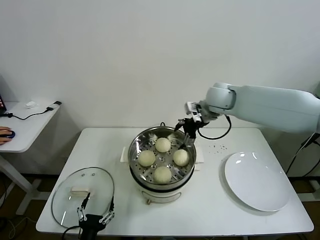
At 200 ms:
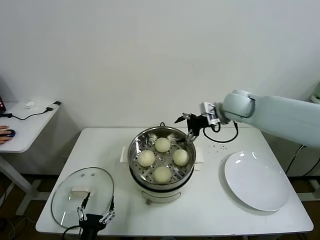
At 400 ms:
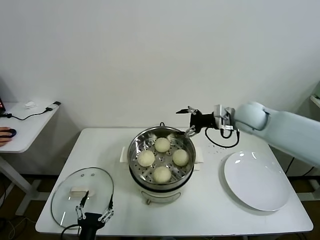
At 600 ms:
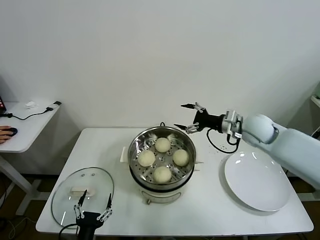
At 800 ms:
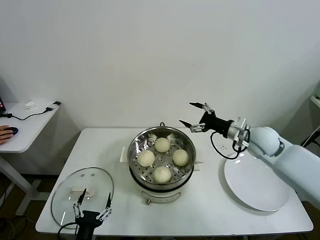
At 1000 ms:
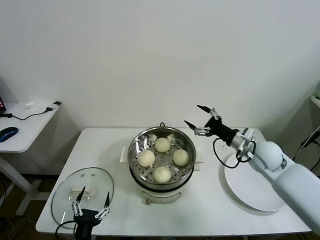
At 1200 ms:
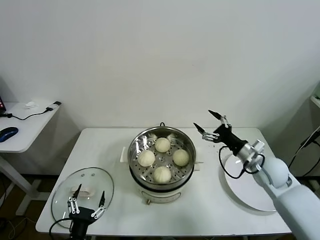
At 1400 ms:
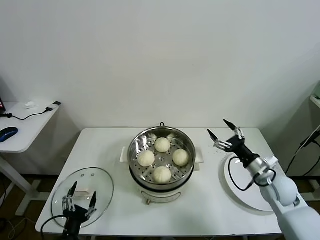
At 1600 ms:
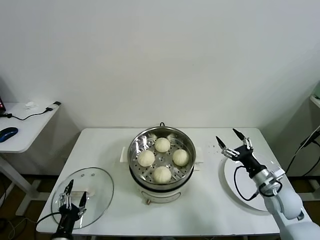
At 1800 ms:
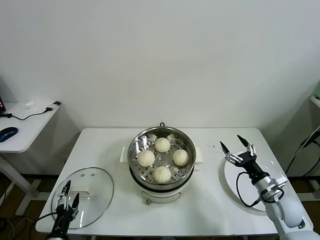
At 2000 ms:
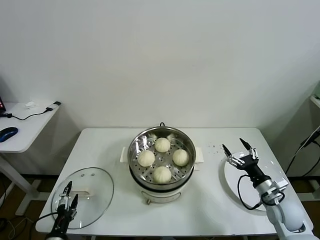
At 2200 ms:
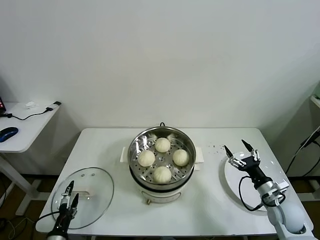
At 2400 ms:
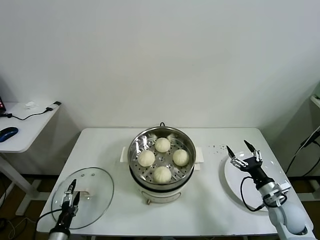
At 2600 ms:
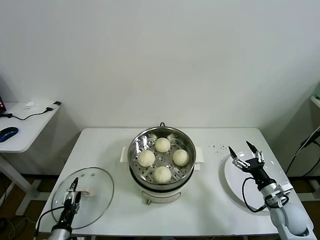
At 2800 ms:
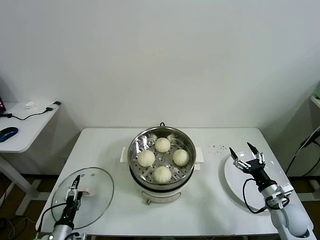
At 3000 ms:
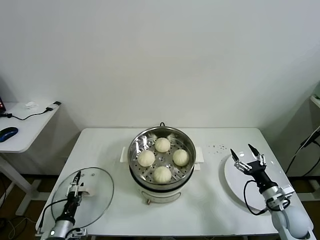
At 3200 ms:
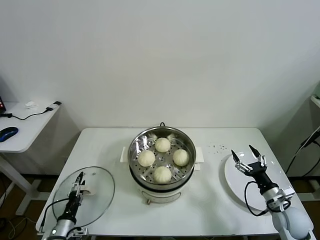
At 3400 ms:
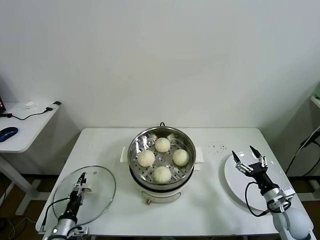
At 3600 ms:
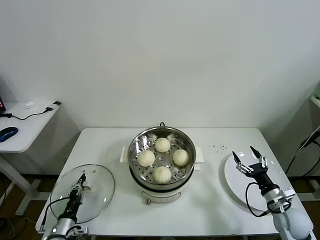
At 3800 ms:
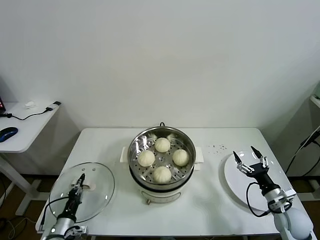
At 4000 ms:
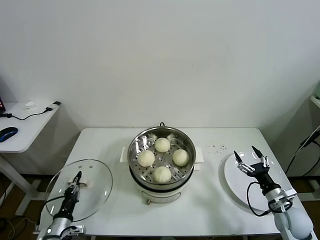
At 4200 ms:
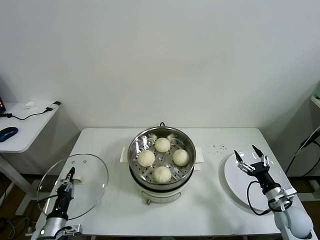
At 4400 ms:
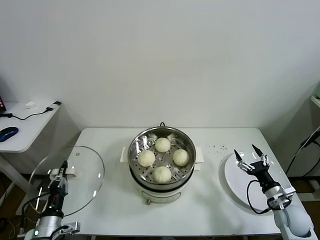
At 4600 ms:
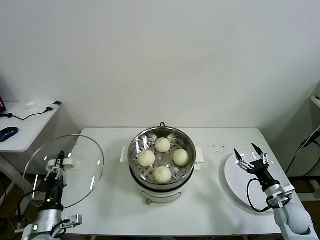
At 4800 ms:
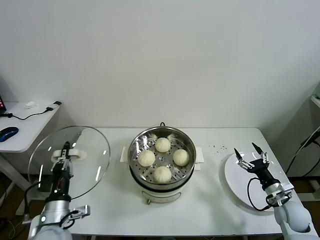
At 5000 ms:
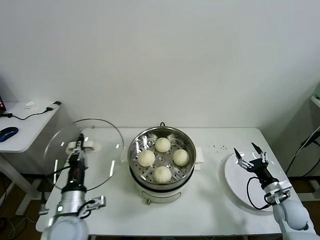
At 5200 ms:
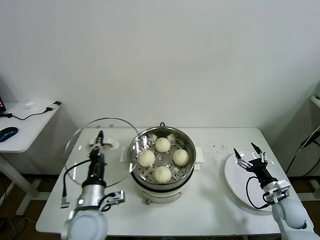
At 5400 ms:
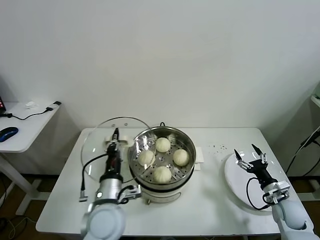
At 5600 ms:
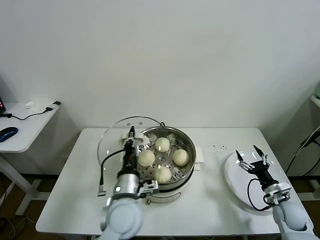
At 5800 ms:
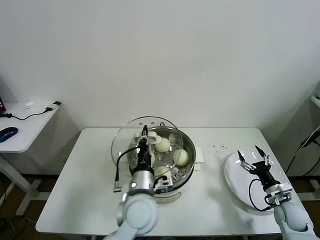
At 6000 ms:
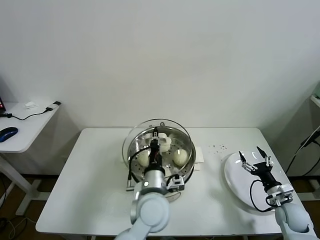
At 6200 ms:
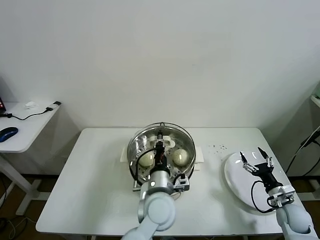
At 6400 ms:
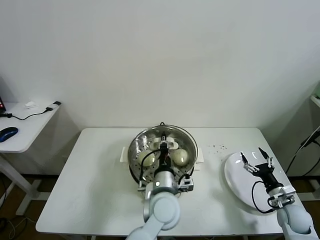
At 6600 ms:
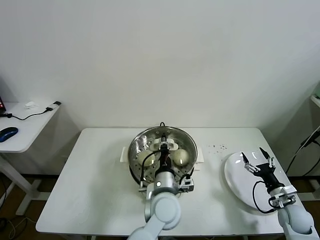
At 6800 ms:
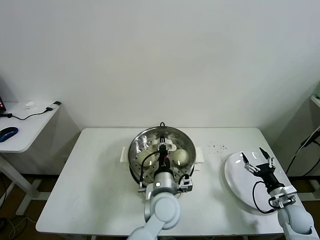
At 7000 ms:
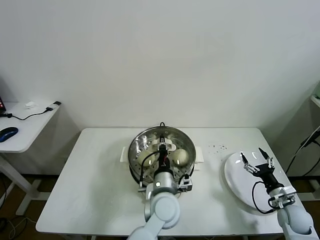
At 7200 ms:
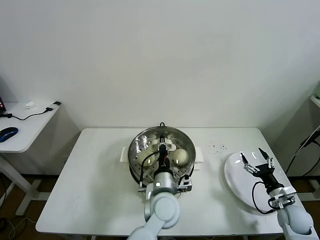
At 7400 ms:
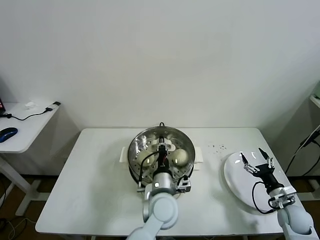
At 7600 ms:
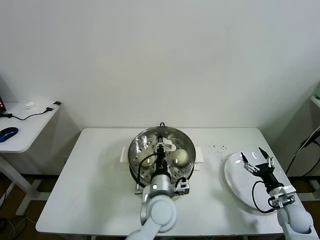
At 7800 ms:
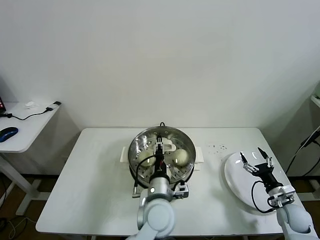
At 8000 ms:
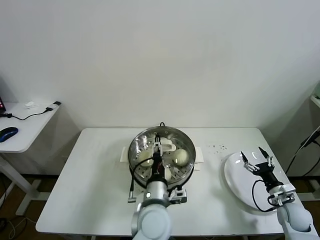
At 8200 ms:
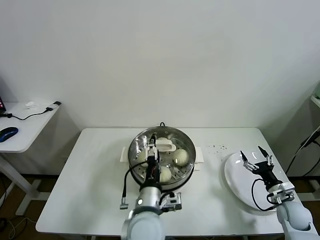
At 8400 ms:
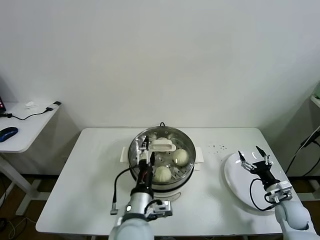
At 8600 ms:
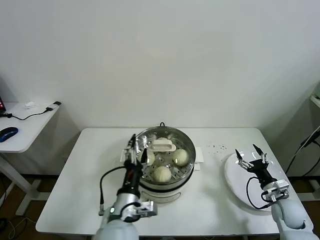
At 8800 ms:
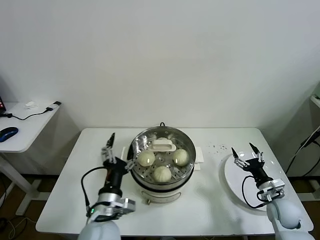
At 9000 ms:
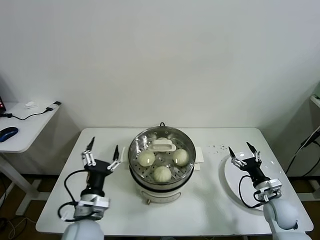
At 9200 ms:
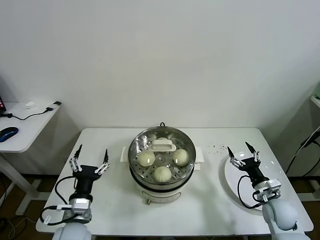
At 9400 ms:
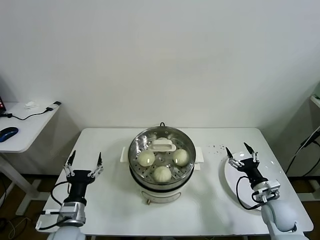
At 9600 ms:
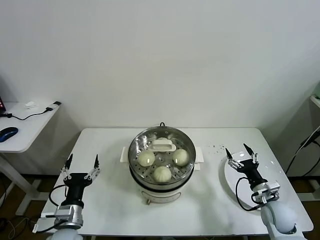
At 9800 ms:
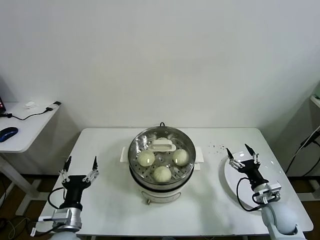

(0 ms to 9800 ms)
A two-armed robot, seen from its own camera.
Task of the whole recording: take steamed baozi put them in steamer.
Step, 0 ms - 3800 ms: Grasp the pot lid with left gripper.
Step, 4000 ms - 8200 ms: Place the pot lid on the steamer with left gripper.
0 ms - 1400 ms: The right gripper heads downward, backward and to the right, covering roughly 35 cm.
1400 ms - 2800 ms: The left gripper travels to the left, downward and forward by some 10 cm. Meanwhile the right gripper goes roughly 10 cm downward and backward.
2800 ms - 4200 ms: The left gripper closes its fingers.
4200 ms - 5600 ms: The left gripper heads to the right and upward, covering about 30 cm.
5600 ms - 7000 ms: The left gripper is displaced to the right by approximately 10 cm.
7000 ms - 8400 ms: The left gripper travels backward and to the left by roughly 10 cm, and opens.
8400 ms - 9800 ms: The right gripper shifts about 5 cm to the left, while the left gripper shifts roughly 20 cm to the left.
